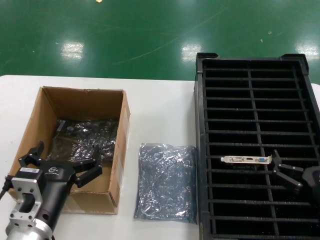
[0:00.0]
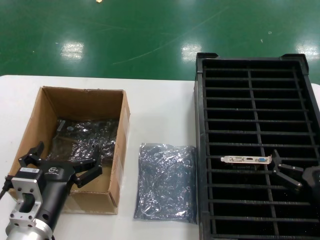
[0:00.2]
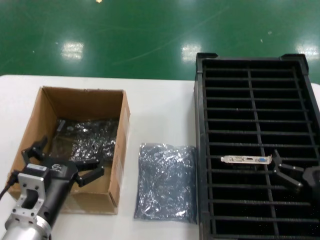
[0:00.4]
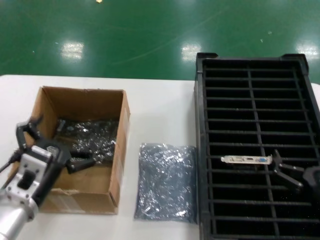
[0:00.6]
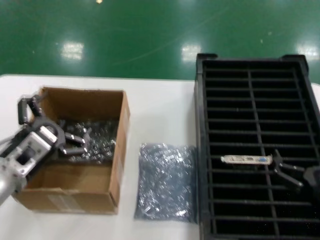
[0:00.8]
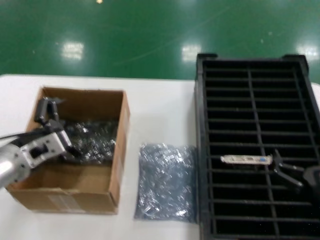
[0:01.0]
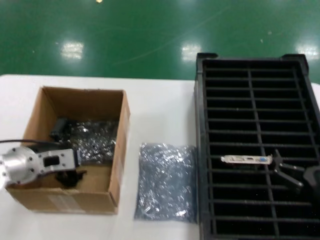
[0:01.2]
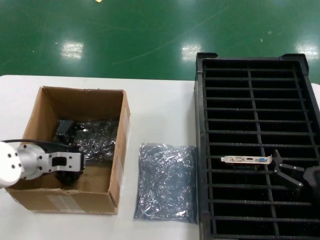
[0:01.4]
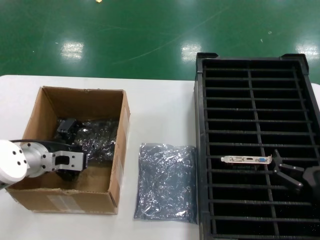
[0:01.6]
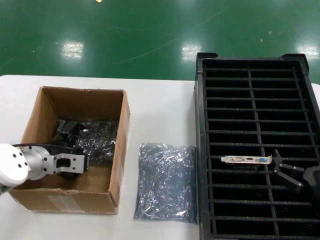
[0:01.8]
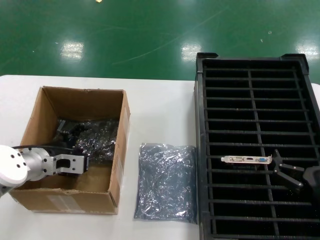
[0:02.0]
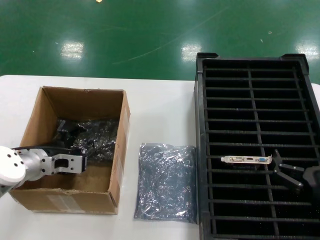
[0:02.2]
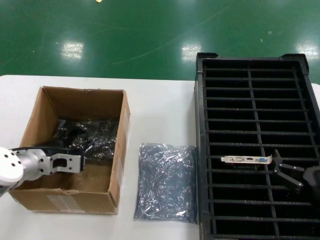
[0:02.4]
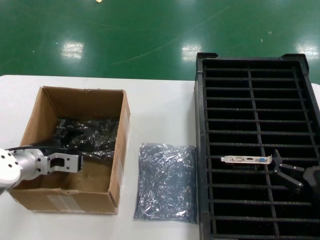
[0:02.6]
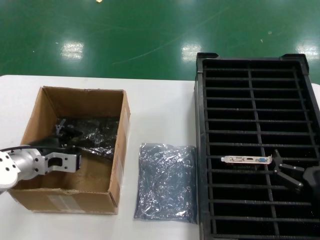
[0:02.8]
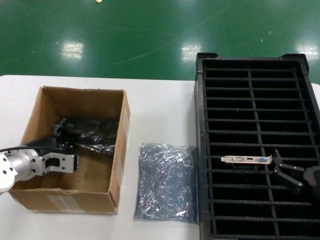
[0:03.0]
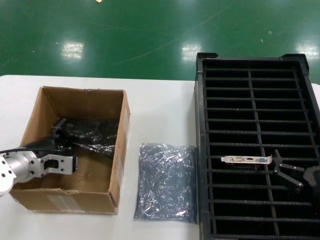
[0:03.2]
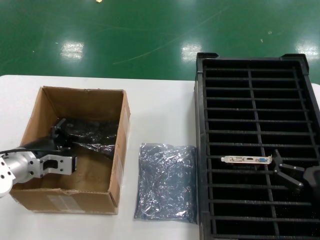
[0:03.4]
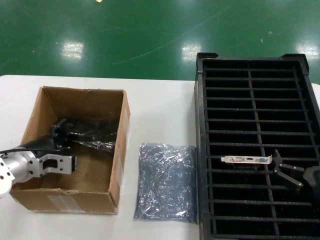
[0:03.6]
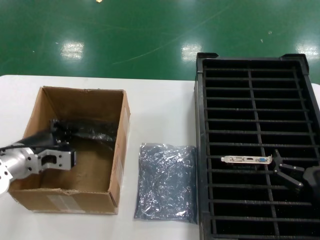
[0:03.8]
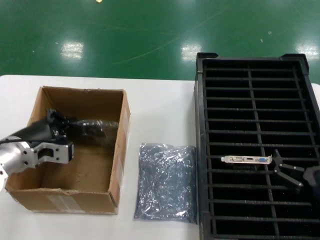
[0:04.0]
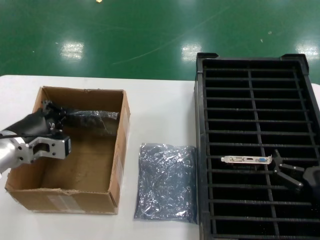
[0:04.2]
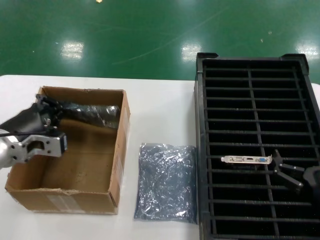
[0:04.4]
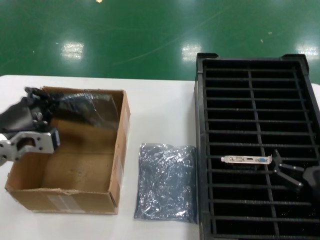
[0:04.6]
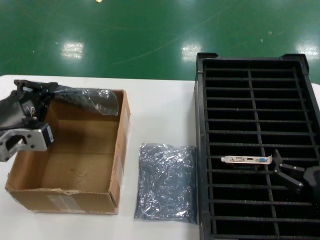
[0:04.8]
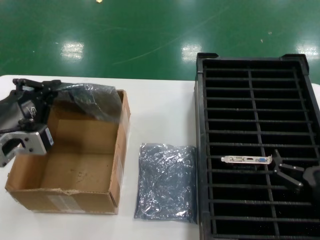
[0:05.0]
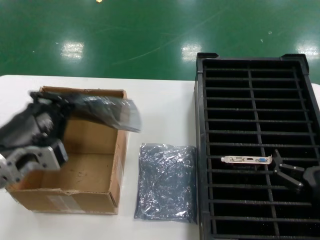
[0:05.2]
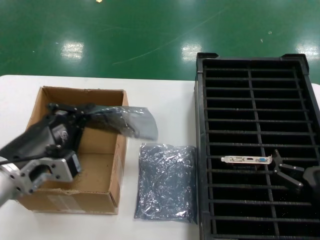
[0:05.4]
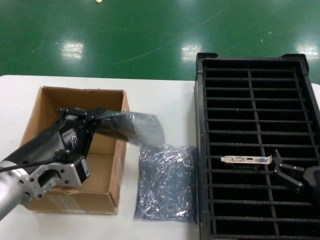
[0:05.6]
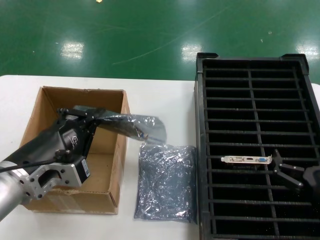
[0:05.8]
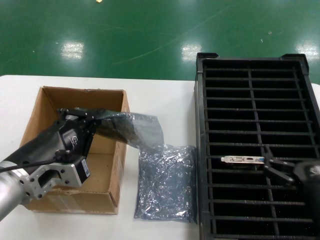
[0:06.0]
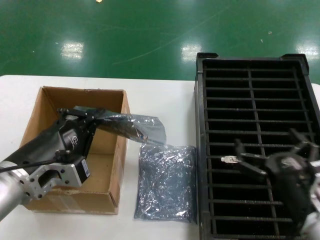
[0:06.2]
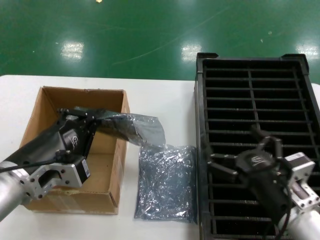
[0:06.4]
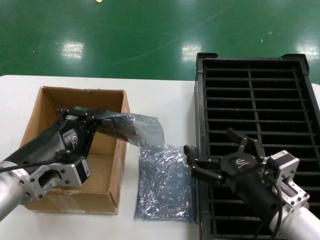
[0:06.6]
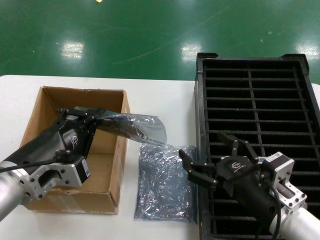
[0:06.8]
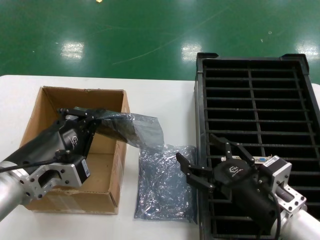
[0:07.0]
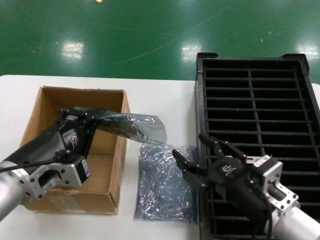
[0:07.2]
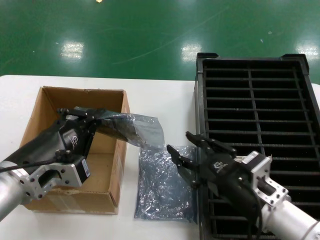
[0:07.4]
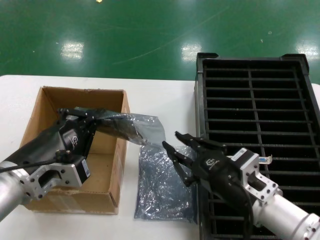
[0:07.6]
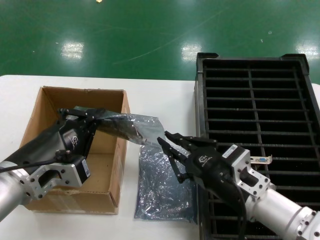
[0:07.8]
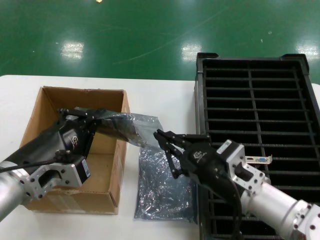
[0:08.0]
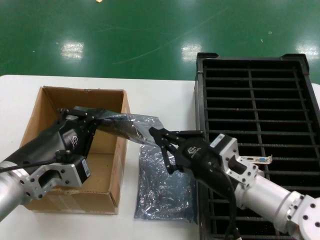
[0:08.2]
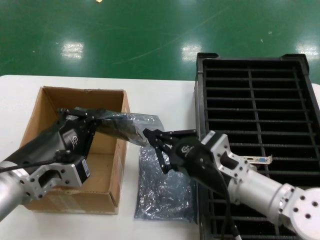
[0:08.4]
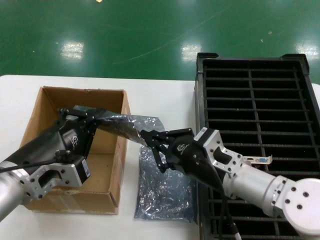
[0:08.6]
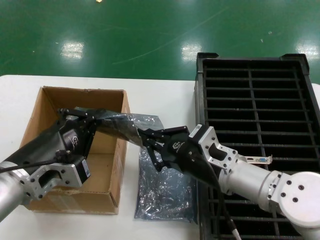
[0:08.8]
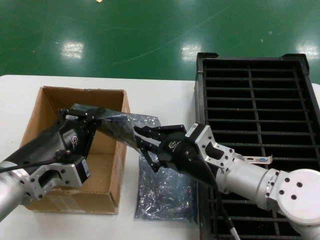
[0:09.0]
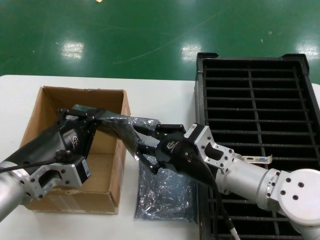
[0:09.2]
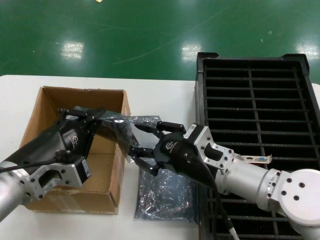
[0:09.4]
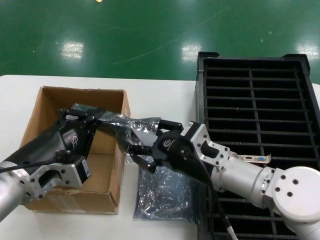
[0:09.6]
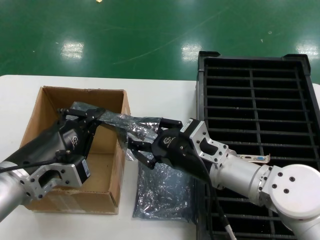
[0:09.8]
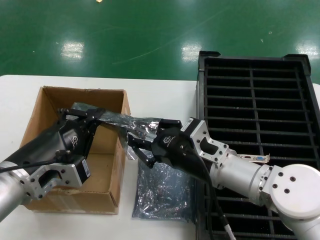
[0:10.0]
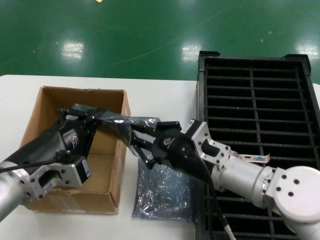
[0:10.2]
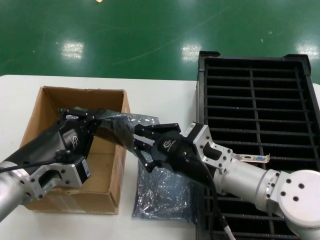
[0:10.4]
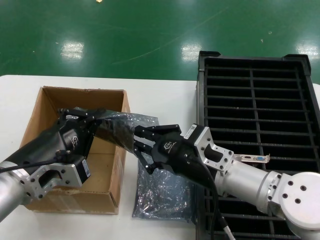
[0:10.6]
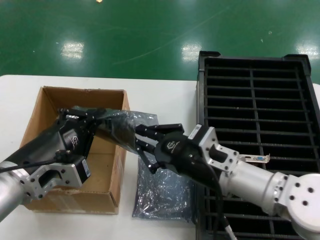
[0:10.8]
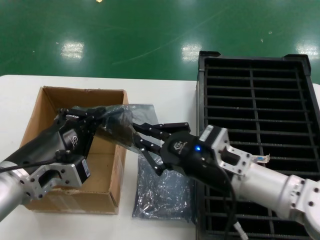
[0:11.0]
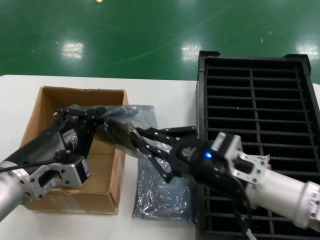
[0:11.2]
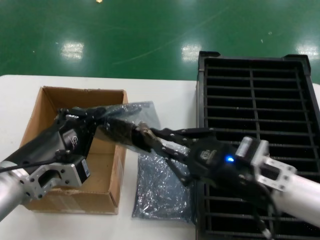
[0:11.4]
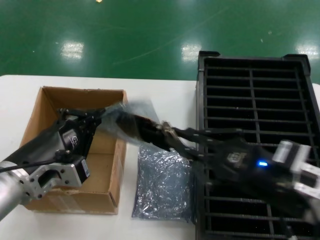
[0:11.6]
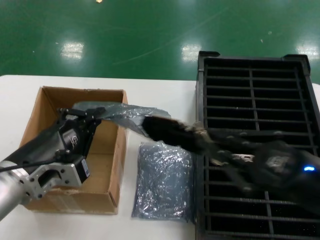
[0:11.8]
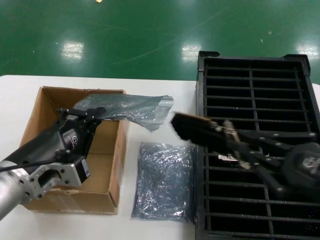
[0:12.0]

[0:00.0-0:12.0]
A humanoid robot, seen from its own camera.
Task of the whole recording: take out graphics card from box remove packaging put into black container.
Step, 0:00.0 to 0:03.0: Grasp the bag.
Step, 0:03.2 to 0:05.6: Lift the bag.
Step, 0:05.8 to 0:12.0: Take out the hard disk of the bag.
0:00.0 to 0:01.6: The left hand goes roughly 20 cm forward and to the left.
0:01.6 to 0:03.0: The hands stay close to where they were, moving slightly.
0:03.0 to 0:04.4: The left hand heads upward and backward, covering roughly 10 cm.
0:04.4 to 0:06.0: The left hand moves backward and to the right, approximately 10 cm.
0:06.0 to 0:07.6: The right hand travels to the left by approximately 10 cm.
0:07.6 to 0:09.0: The right hand is displaced forward and to the left by some 10 cm.
0:09.0 to 0:10.4: Neither hand changes place.
0:10.4 to 0:12.0: The right hand moves to the right, backward and upward, approximately 25 cm.

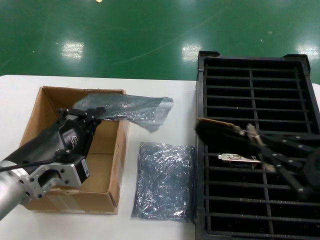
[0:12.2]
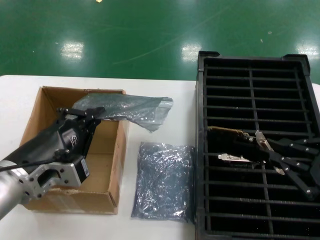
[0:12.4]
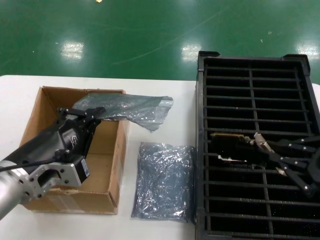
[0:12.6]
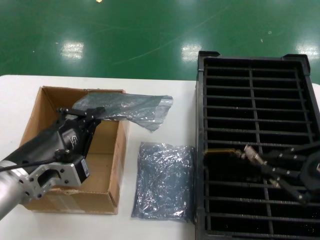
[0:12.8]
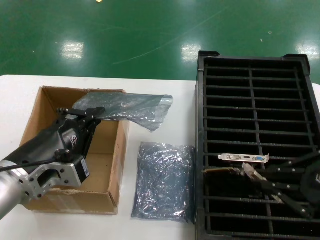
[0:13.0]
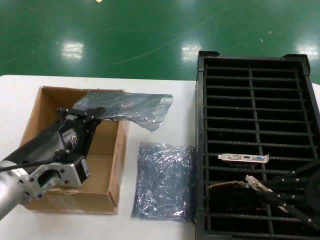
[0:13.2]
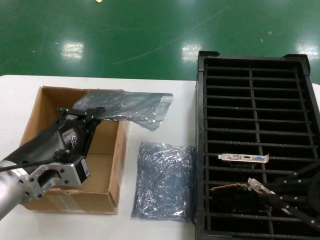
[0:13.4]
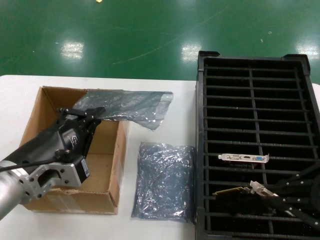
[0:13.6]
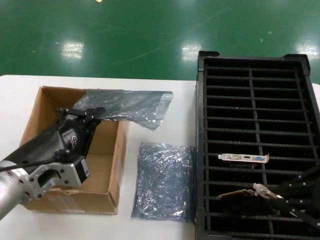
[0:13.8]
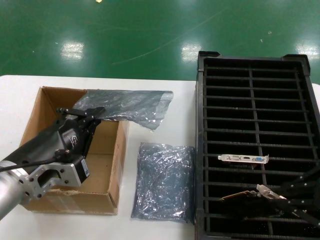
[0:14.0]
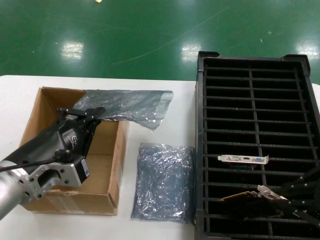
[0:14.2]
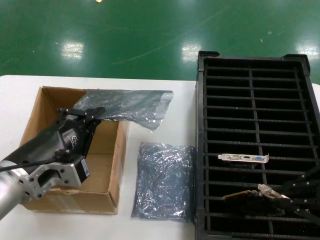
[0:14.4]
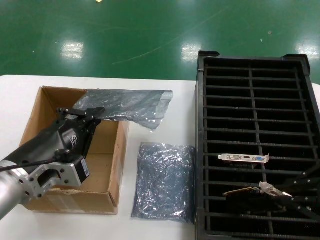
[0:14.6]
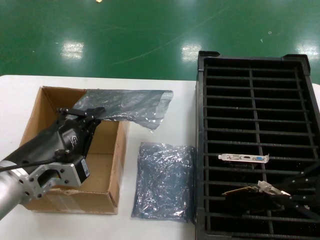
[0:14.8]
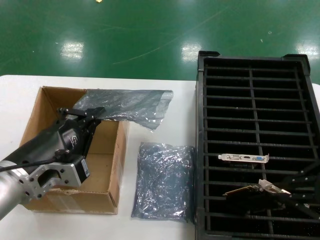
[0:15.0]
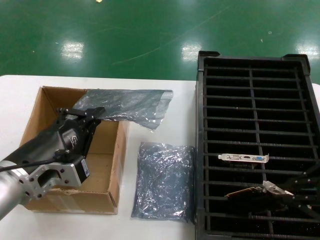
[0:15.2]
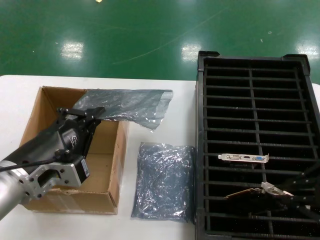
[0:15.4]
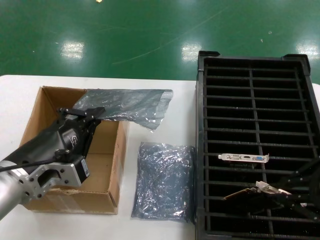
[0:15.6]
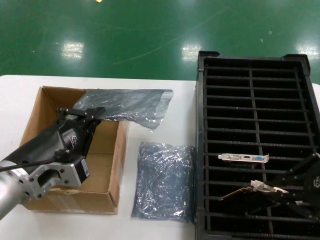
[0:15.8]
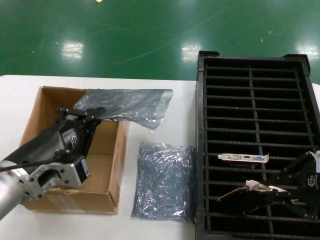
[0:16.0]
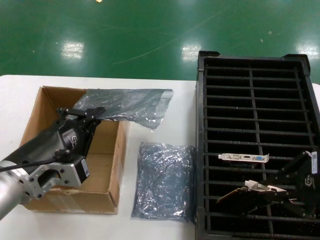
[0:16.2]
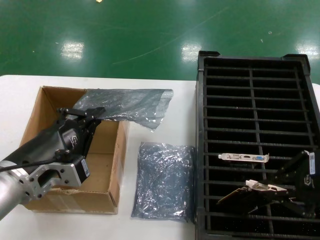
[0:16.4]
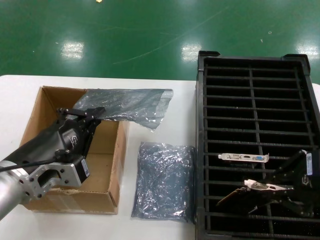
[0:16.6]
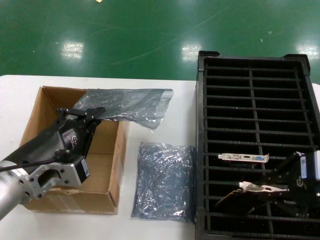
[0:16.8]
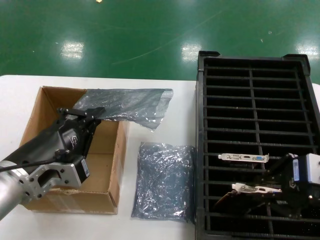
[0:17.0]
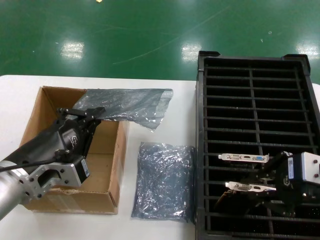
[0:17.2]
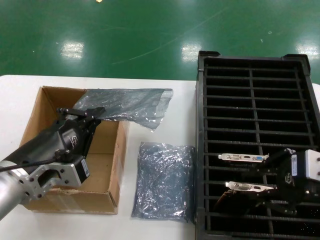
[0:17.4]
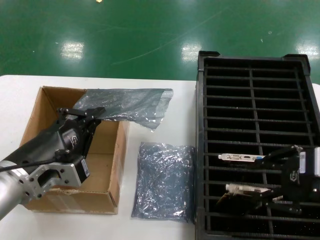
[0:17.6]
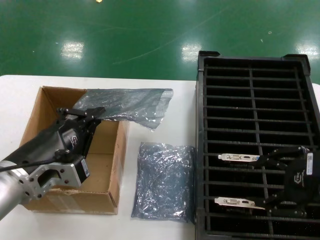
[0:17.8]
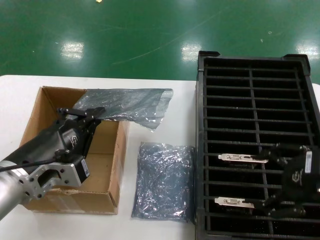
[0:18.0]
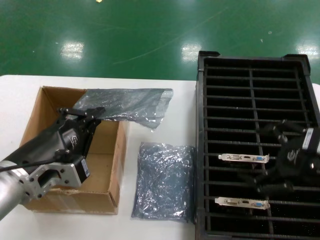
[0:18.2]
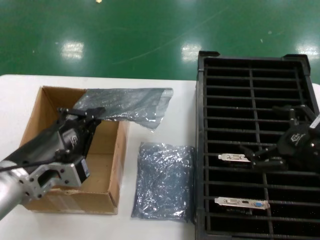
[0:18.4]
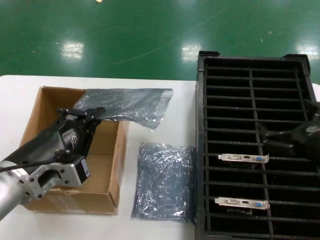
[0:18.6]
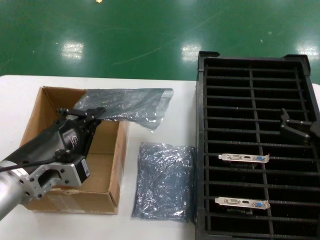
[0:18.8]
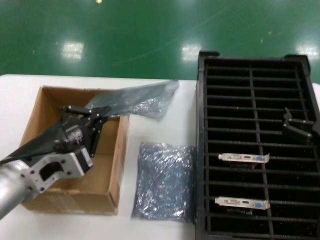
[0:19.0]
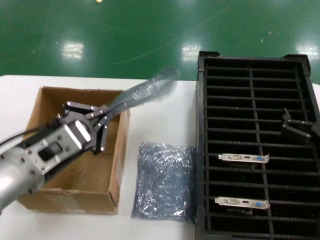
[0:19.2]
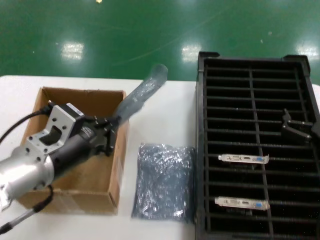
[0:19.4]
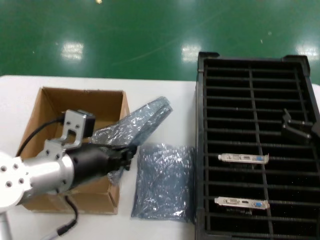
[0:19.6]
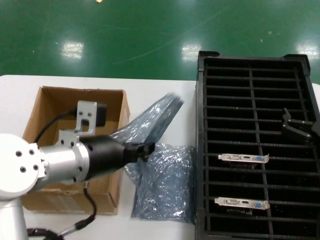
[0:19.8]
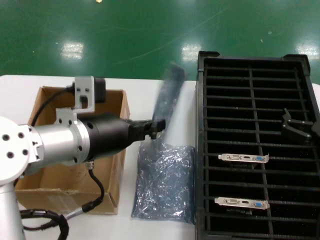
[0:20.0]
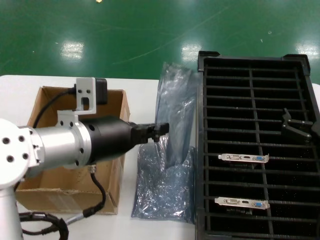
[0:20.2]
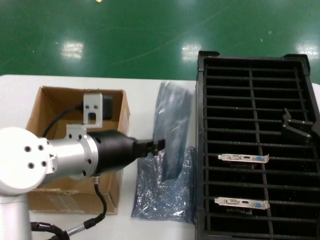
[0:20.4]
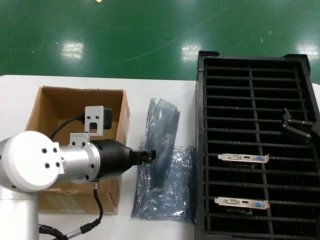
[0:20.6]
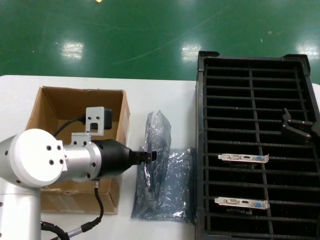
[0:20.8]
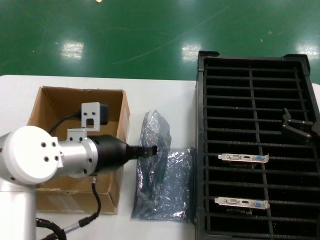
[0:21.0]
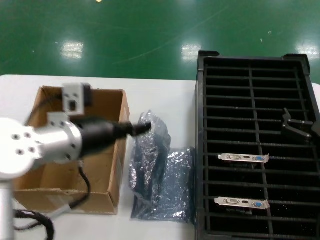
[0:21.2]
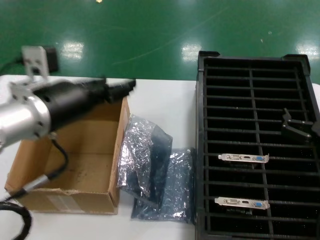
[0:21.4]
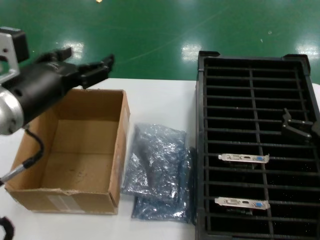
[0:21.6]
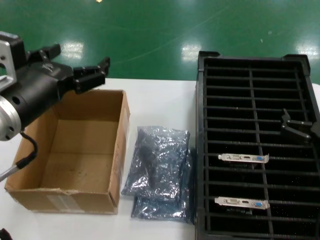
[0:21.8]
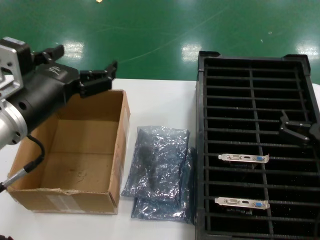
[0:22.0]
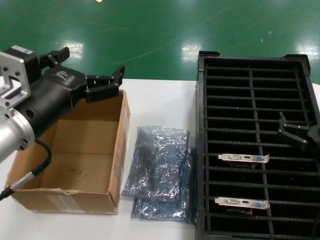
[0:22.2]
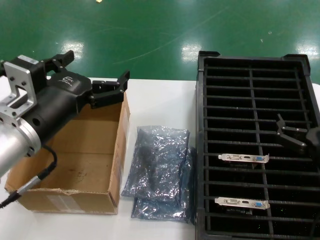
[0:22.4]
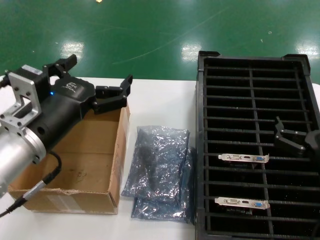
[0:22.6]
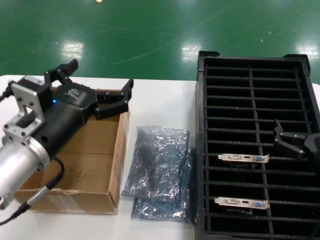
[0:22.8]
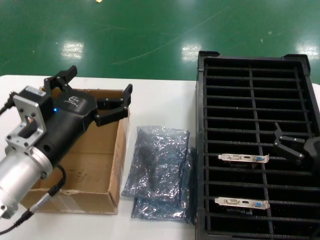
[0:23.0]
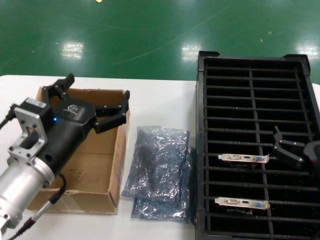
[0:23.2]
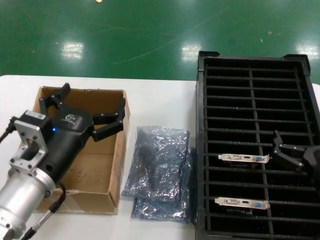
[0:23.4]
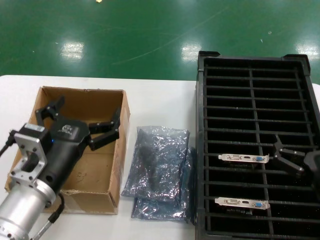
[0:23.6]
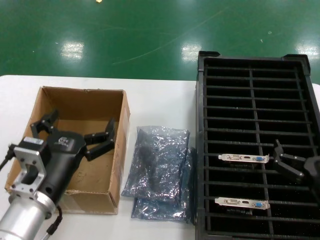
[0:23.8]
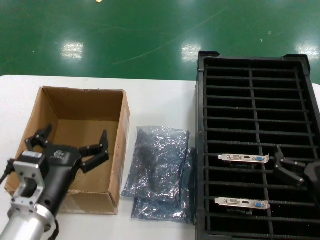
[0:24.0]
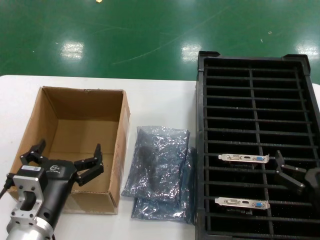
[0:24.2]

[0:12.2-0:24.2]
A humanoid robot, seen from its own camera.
Task of the whole recording: take out graphics card from box remove packaging put into black container.
Step, 0:12.2 to 0:18.0: Place the hard disk in the hard disk enclosure.
Step, 0:18.2 to 0:23.6: Place the down the bag.
0:12.2 to 0:13.8: The right hand travels upward by roughly 5 cm.
0:13.8 to 0:16.6: The hands make only small movements.
0:16.6 to 0:18.2: The hands make only small movements.
0:18.2 to 0:19.8: The left hand is displaced forward and to the right by approximately 10 cm, while the right hand moves downward, about 10 cm.
0:19.8 to 0:21.2: The hands stay close to where they were, moving slightly.
0:21.2 to 0:22.6: The left hand goes some 5 cm backward.
0:22.6 to 0:24.2: The left hand travels downward by roughly 15 cm. Meanwhile the right hand travels downward by some 5 cm.
